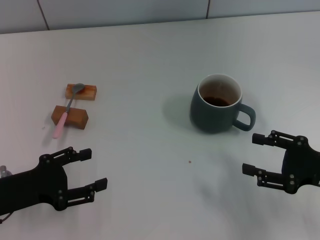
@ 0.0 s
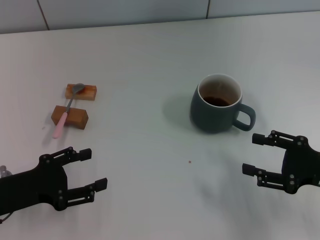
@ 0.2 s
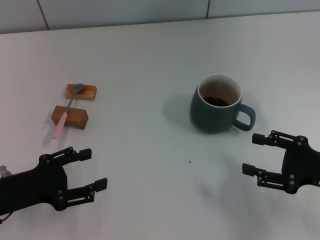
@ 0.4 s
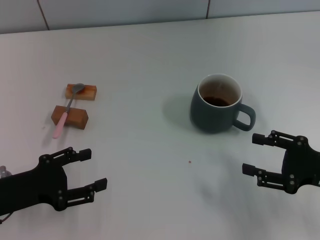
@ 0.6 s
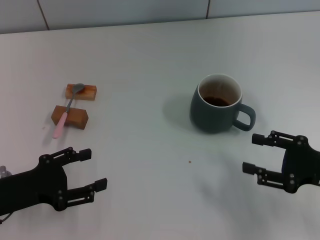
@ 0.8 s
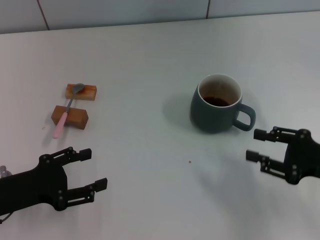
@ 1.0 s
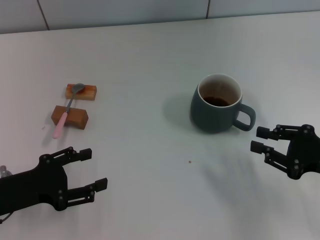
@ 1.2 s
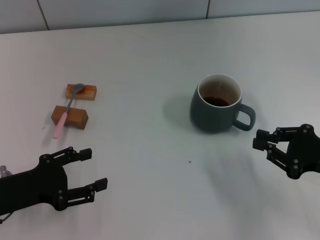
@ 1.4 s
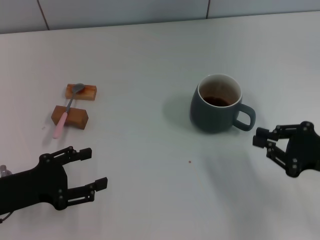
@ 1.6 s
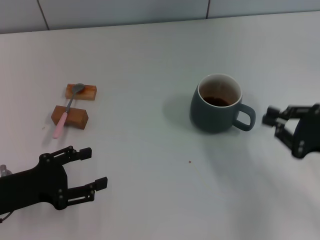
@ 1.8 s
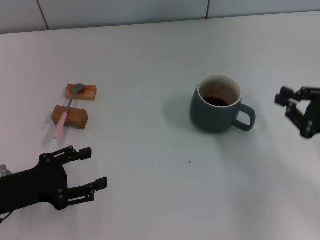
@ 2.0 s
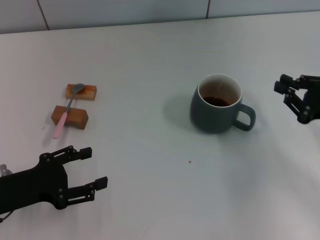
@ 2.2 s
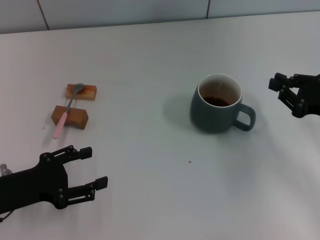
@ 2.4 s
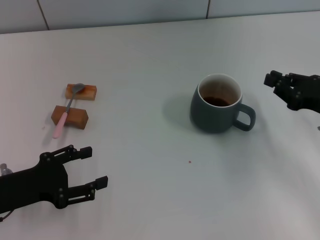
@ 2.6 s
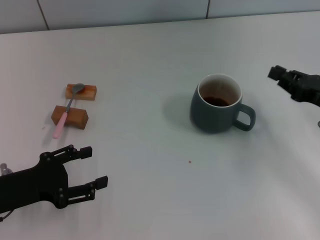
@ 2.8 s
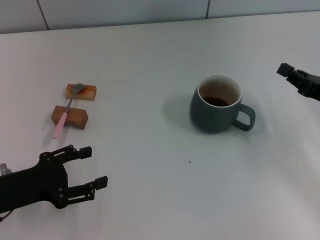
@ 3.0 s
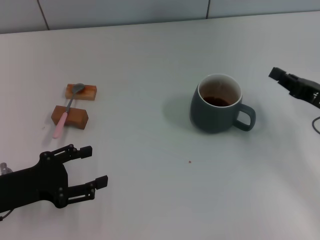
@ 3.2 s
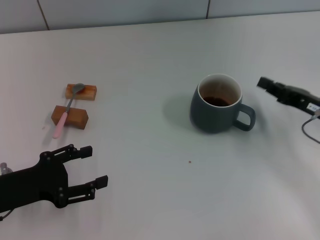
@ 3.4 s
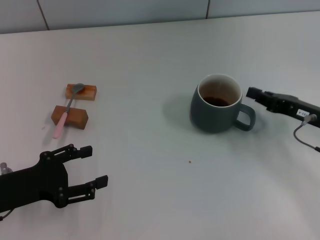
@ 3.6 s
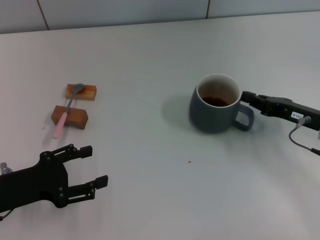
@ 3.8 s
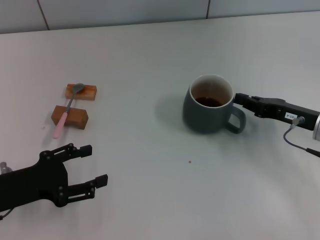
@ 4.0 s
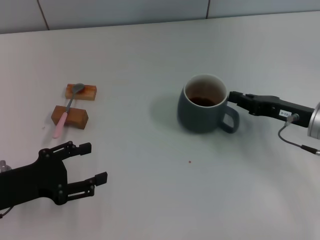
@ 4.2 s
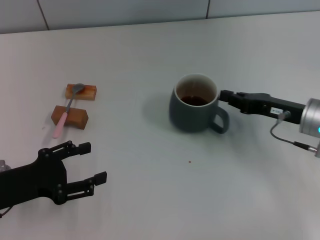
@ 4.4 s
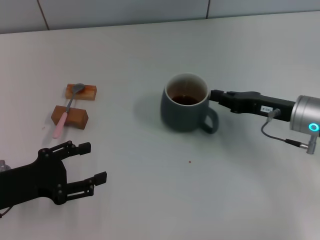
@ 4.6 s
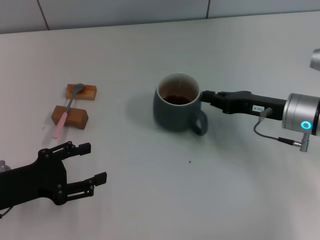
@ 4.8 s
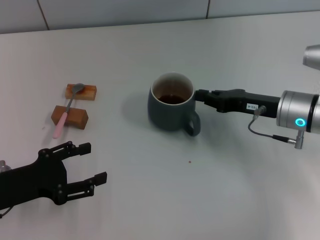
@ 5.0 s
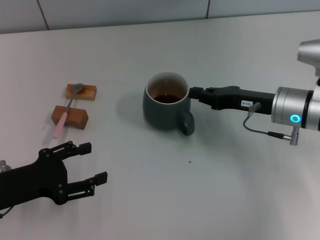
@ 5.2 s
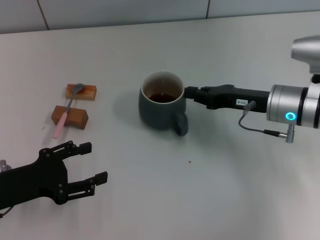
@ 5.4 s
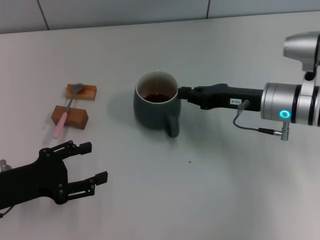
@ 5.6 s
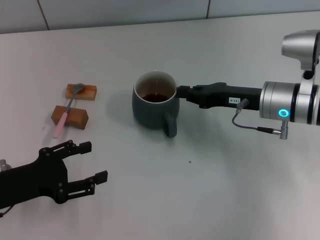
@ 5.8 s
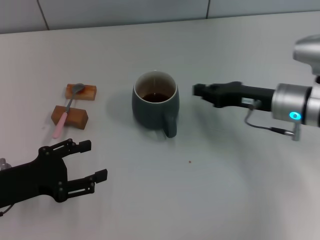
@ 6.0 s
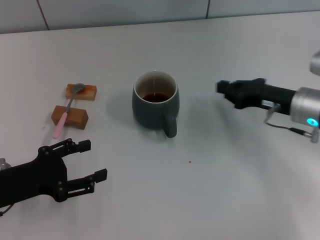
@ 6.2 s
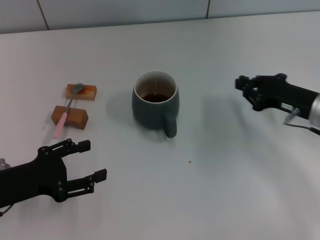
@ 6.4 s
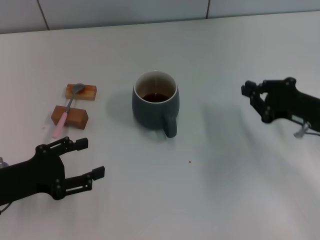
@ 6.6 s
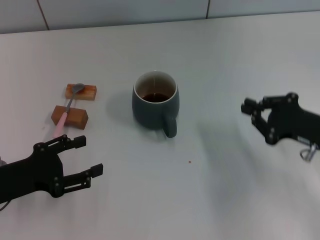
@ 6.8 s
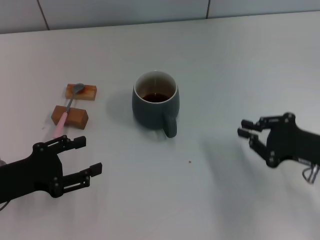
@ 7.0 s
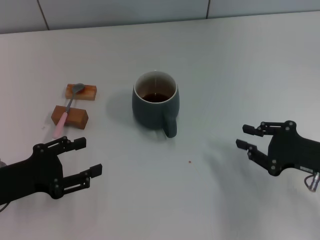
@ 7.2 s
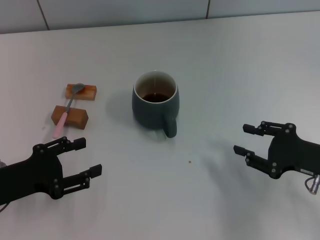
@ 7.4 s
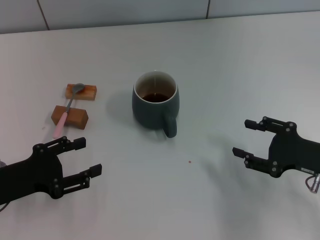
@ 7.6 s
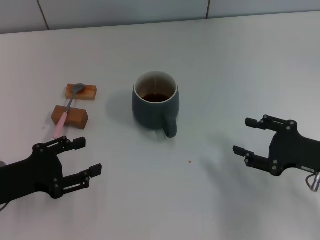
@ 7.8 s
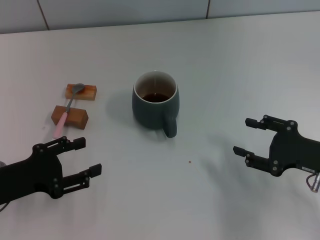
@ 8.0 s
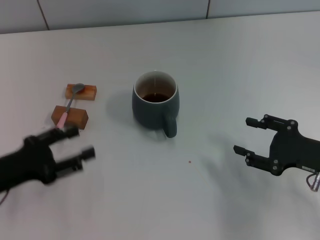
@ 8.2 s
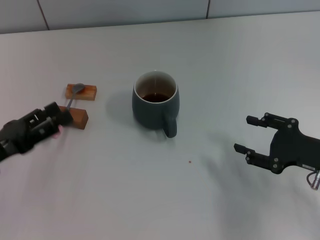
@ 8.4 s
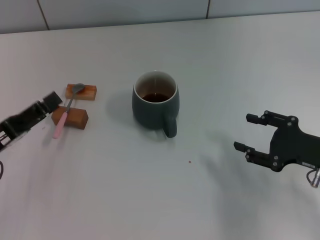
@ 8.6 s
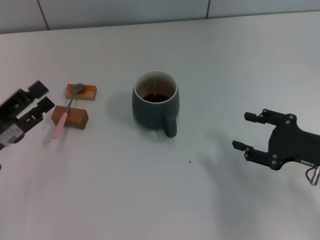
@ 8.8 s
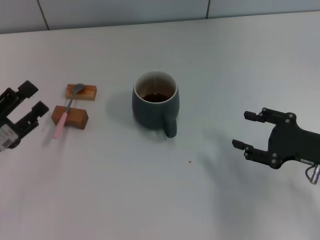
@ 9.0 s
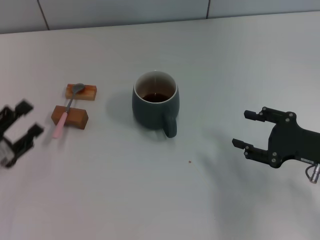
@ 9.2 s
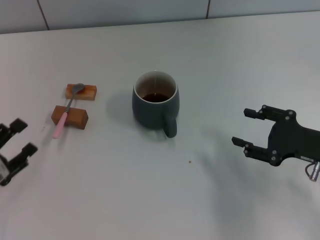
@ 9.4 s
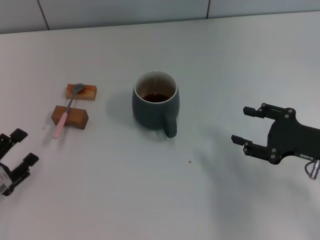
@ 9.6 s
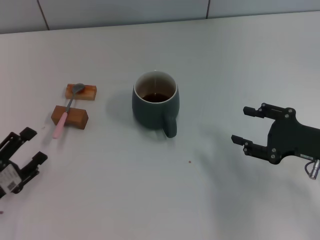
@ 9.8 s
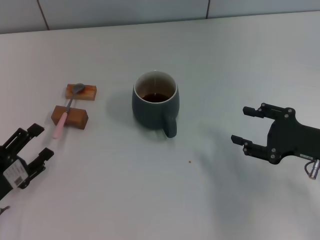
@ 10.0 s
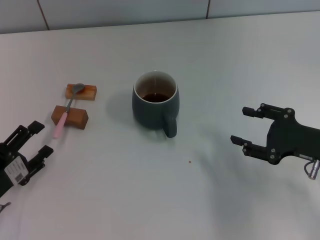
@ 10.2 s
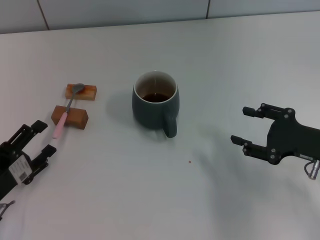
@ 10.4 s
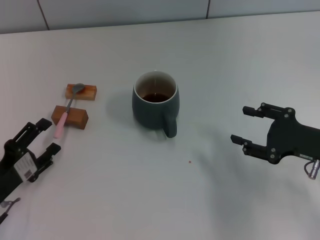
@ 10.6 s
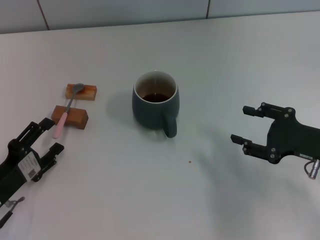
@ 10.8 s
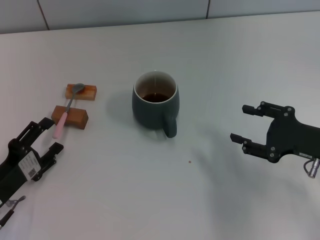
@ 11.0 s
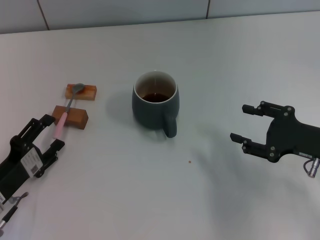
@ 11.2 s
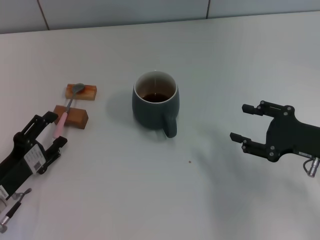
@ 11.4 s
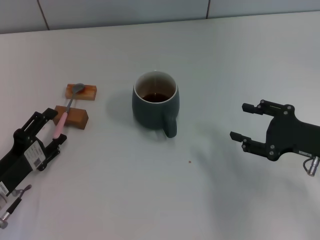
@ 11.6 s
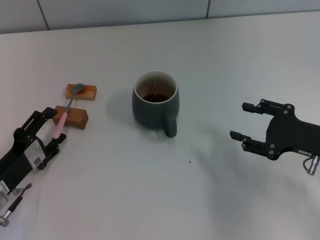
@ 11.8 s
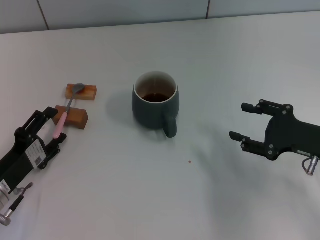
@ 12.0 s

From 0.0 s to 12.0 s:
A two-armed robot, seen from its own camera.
Task of the whole recording: Move the grey cup to the center, lift the pink spoon, stir it three times in the cup, and put the spoon into the cup.
Step, from 0.0 s to 5.8 s: Move the cup with coffee to the center of view with the right gripper.
From 0.0 s to 1.6 s: The right gripper closes.
From 1.6 s to 3.0 s: The right gripper shifts about 5 cm forward.
From 3.0 s to 4.4 s: The right gripper travels to the left by some 5 cm.
From 6.0 s to 7.6 s: The right gripper moves backward and to the right, roughly 15 cm, and opens up.
From 9.0 s to 10.4 s: The left gripper moves downward, some 5 cm.
From 10.4 s to 12.0 s: The grippers stay close to where they were, moving slightly.

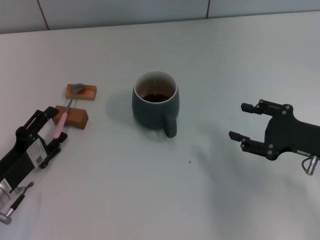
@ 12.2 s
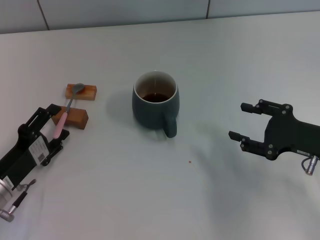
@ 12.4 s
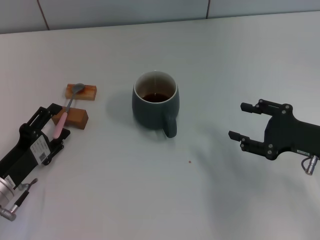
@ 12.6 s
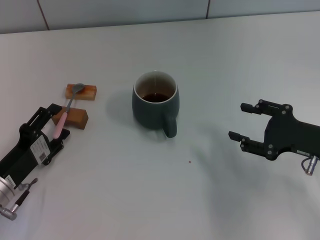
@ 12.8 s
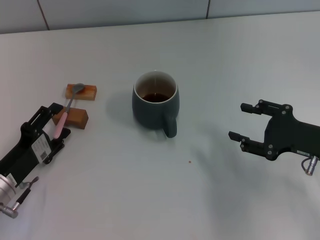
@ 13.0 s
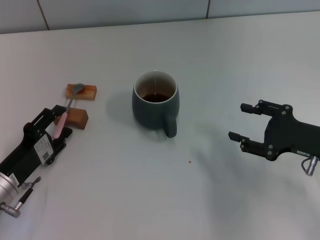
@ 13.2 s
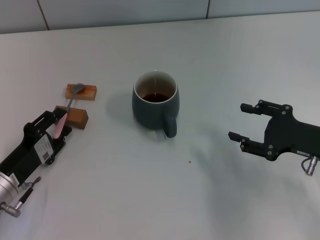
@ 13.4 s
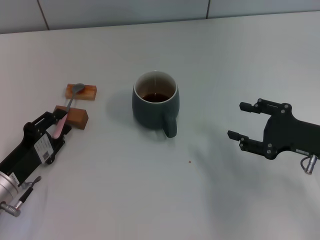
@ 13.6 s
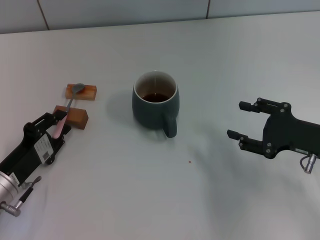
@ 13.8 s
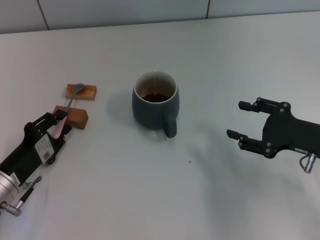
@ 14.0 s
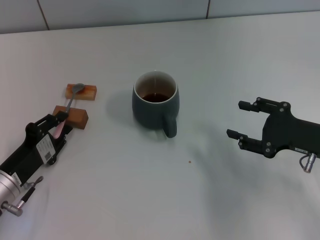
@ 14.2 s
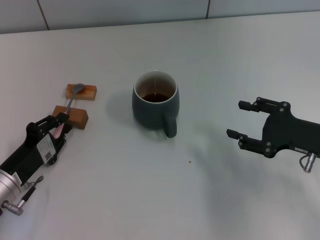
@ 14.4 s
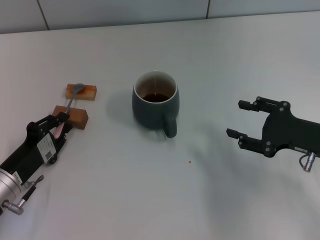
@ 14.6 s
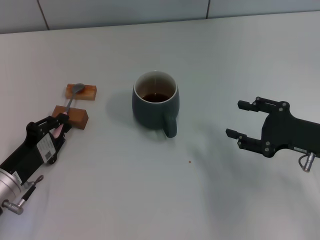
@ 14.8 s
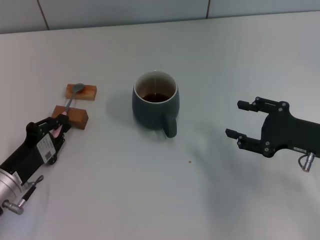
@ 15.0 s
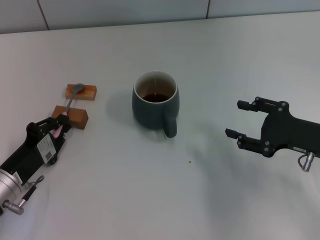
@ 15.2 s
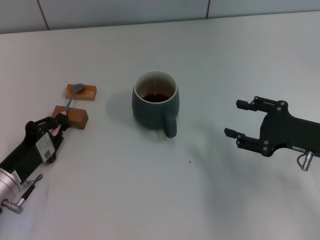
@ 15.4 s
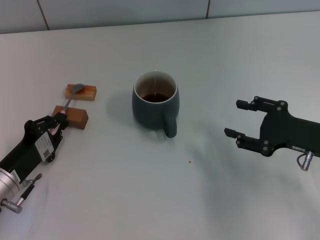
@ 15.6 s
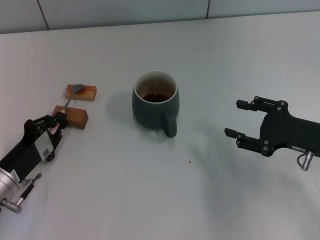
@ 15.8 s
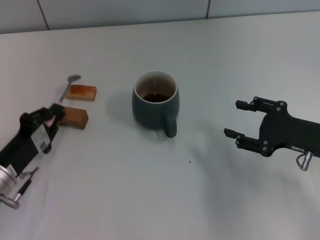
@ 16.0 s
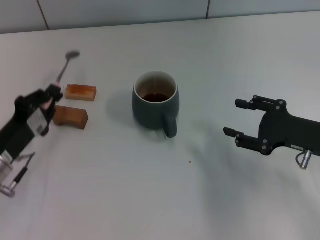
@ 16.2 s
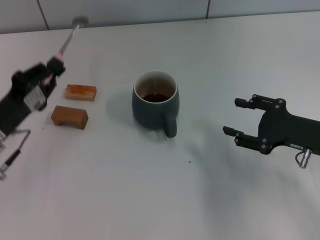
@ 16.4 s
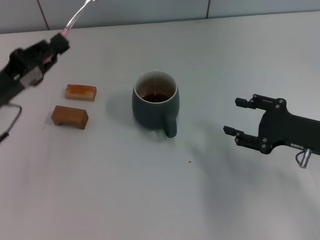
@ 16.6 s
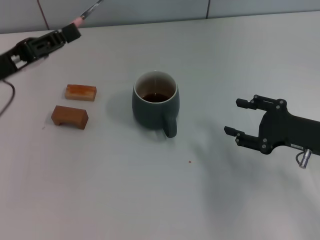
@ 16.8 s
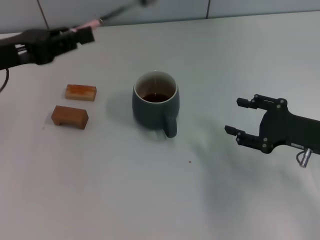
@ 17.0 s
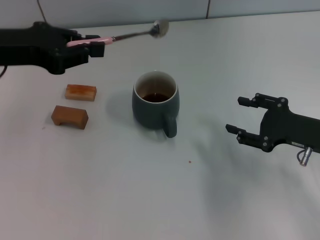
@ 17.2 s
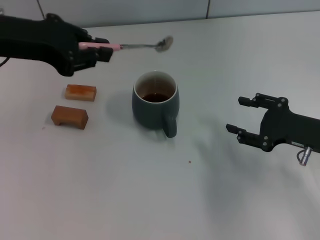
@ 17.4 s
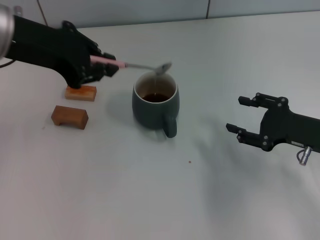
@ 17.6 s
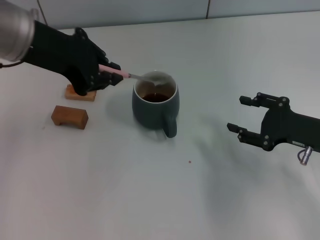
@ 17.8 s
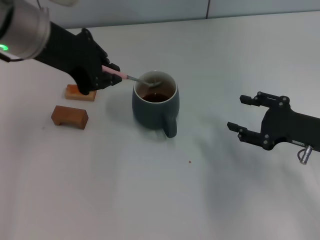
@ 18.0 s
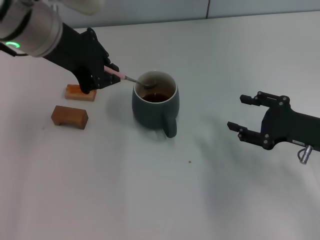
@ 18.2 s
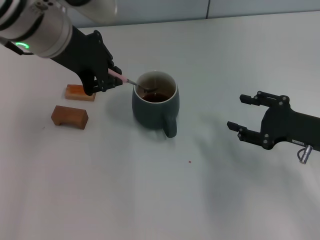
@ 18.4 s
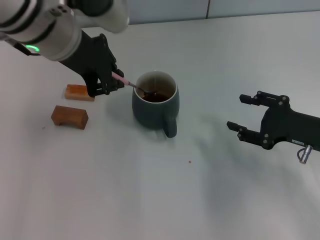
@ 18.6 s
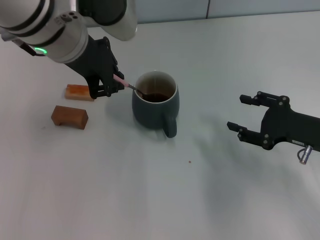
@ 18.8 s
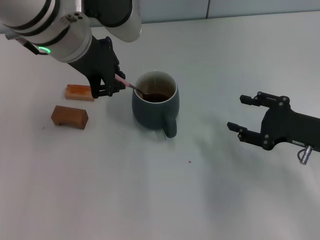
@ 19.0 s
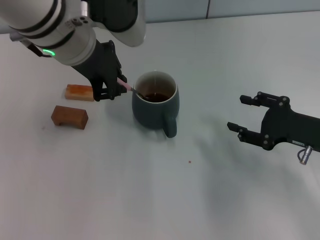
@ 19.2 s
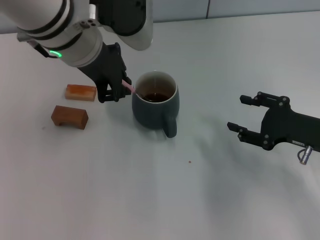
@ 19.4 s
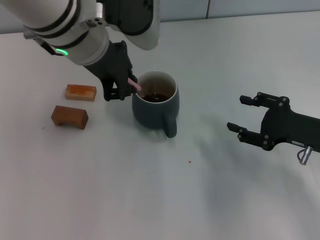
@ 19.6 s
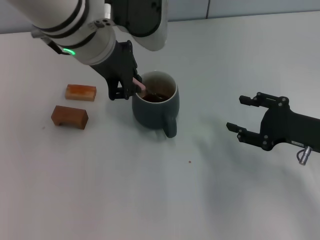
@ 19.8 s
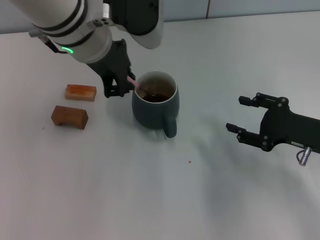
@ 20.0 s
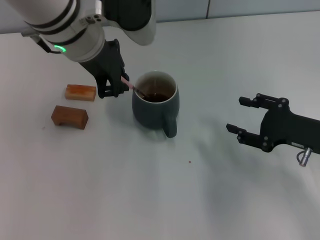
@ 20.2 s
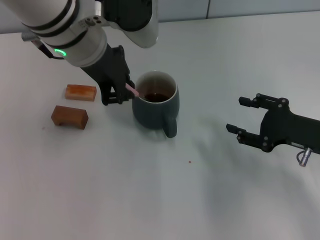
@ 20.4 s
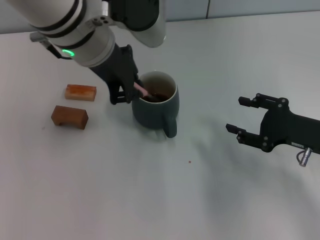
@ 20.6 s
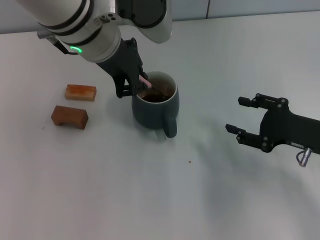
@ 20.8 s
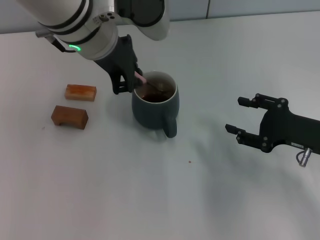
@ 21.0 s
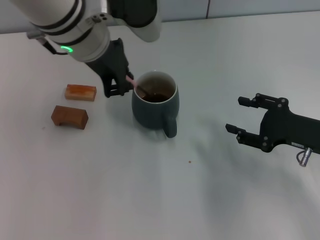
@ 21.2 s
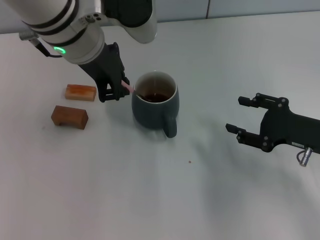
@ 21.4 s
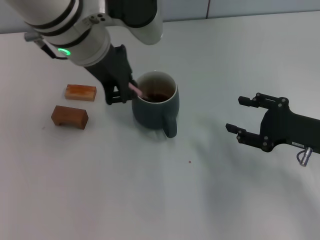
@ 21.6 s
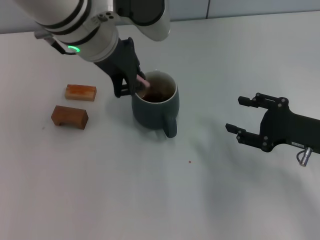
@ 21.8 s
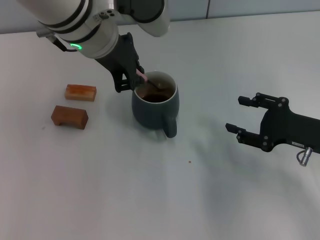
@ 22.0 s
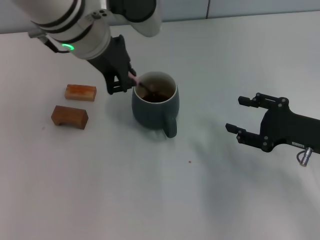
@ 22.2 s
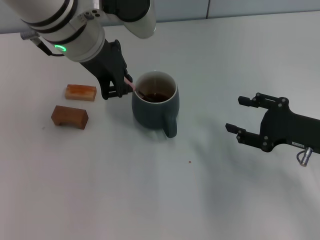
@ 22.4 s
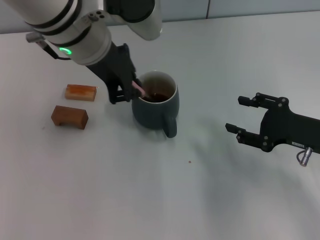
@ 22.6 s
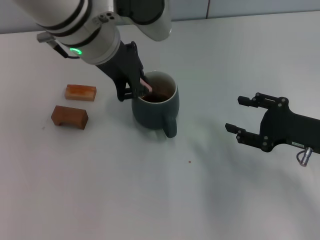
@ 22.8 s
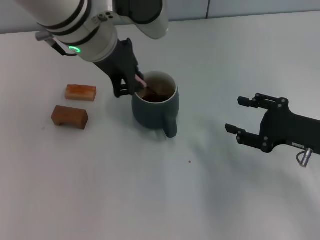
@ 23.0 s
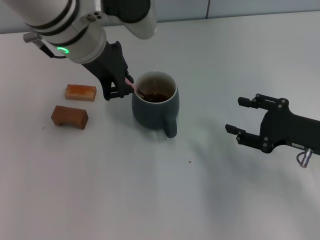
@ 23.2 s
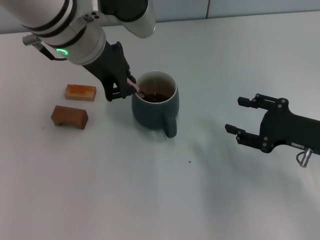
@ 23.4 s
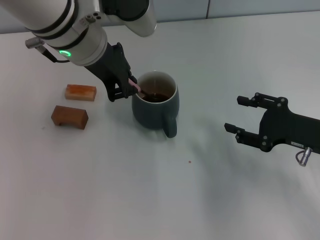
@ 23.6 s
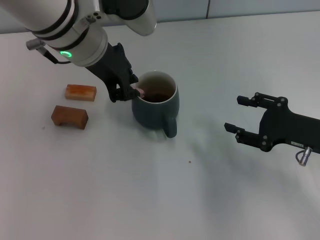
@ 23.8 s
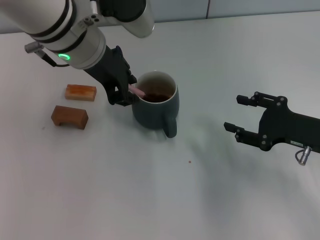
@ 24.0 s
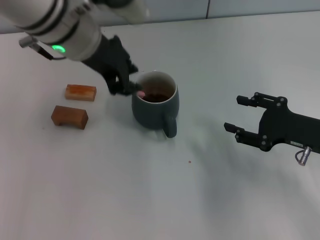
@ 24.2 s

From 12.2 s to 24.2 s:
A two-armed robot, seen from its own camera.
Task of the whole recording: Move the grey cup to the center, lift the pink spoon, stir it three times in the cup, and put the spoon into the cup.
Step, from 12.2 s to 16.0 s: Pick up the spoon with the left gripper.
From 12.2 s to 13.8 s: The left gripper closes its fingers.
From 13.8 s to 15.2 s: The left gripper closes.
From 15.2 s to 16.6 s: The left gripper is displaced upward and forward by approximately 15 cm.
From 16.6 s to 18.2 s: The left gripper goes approximately 20 cm upward and to the right.
From 18.2 s to 19.8 s: The left gripper heads to the right, covering about 5 cm.
From 19.8 s to 24.2 s: The grippers move only a little.
